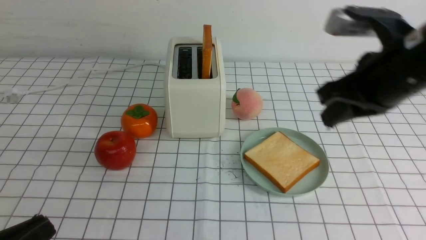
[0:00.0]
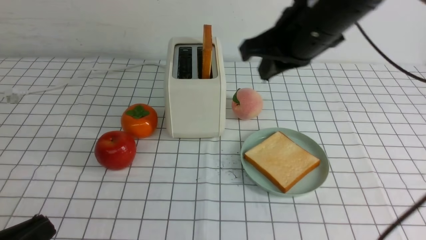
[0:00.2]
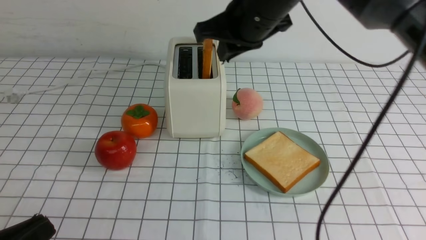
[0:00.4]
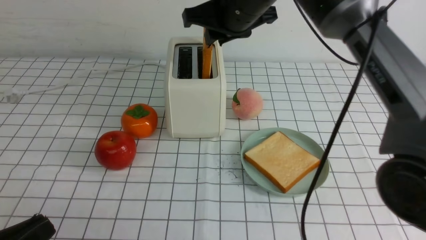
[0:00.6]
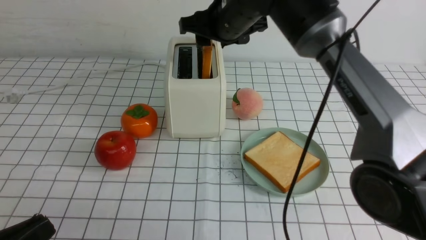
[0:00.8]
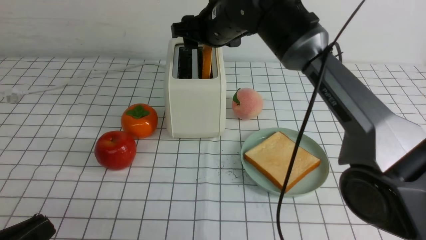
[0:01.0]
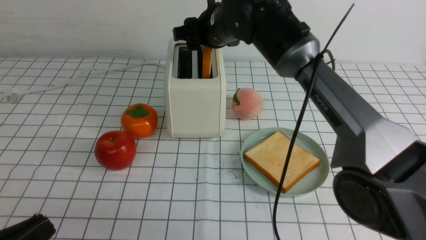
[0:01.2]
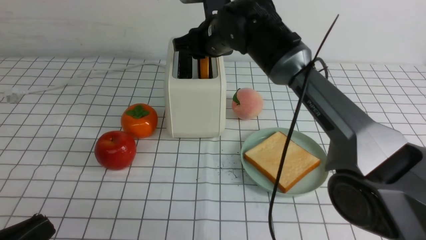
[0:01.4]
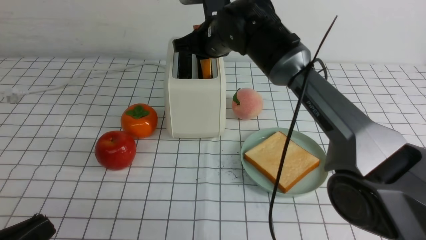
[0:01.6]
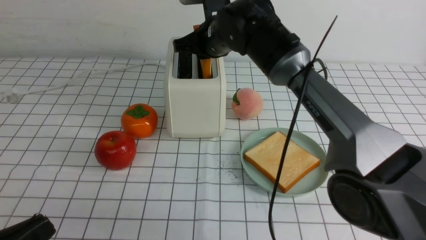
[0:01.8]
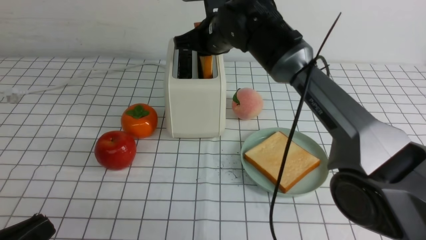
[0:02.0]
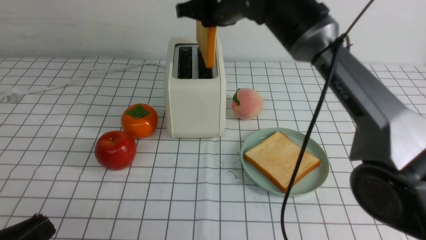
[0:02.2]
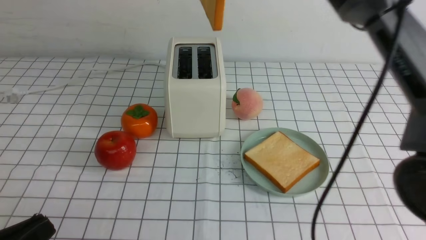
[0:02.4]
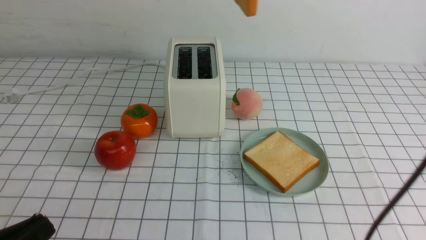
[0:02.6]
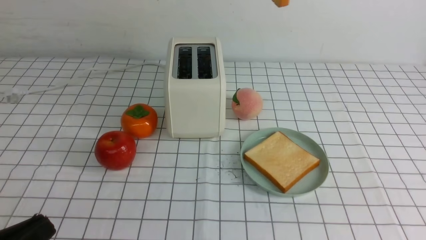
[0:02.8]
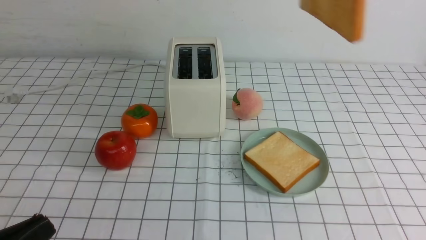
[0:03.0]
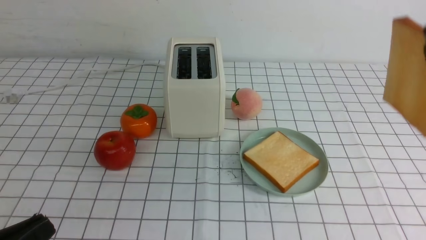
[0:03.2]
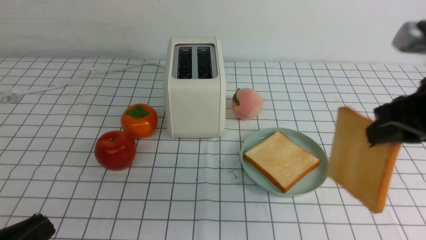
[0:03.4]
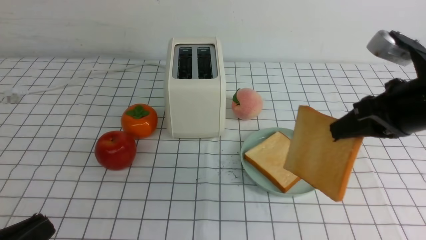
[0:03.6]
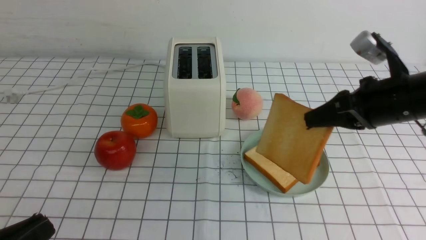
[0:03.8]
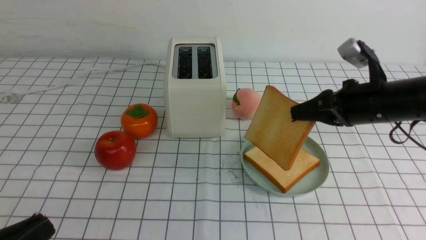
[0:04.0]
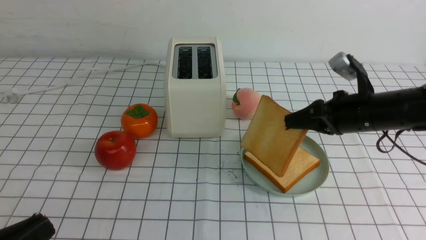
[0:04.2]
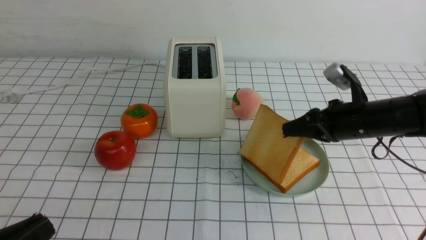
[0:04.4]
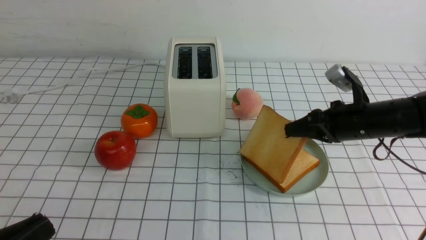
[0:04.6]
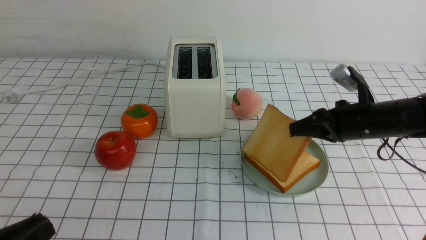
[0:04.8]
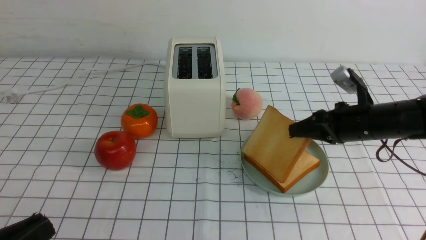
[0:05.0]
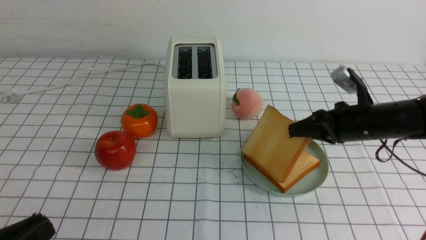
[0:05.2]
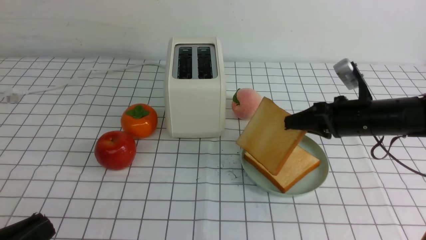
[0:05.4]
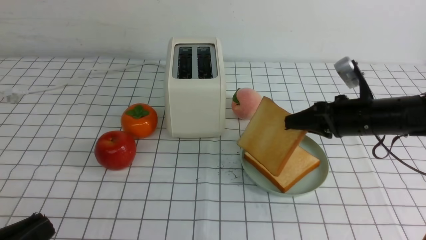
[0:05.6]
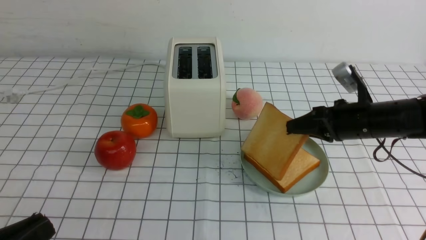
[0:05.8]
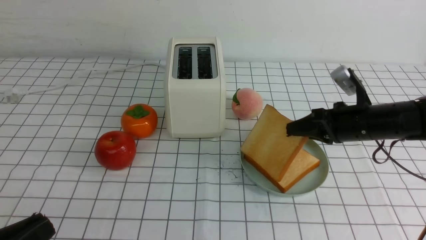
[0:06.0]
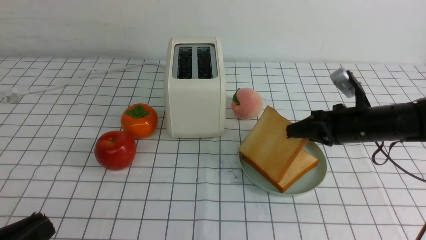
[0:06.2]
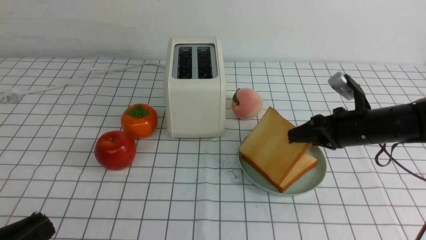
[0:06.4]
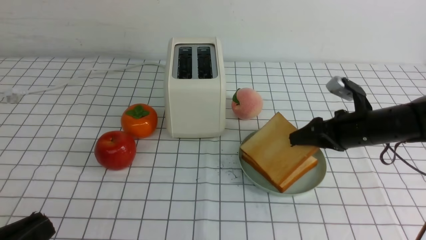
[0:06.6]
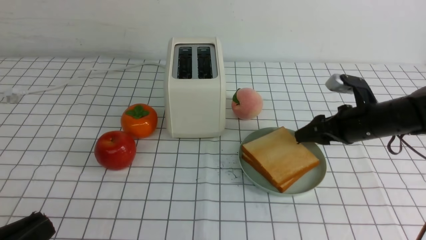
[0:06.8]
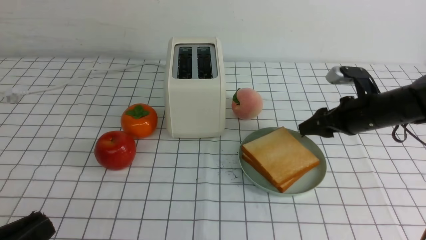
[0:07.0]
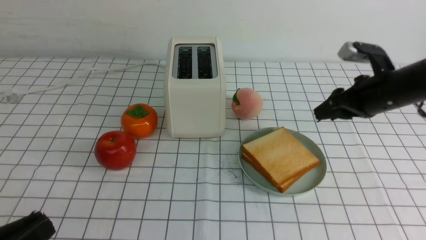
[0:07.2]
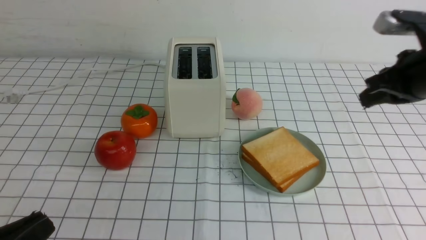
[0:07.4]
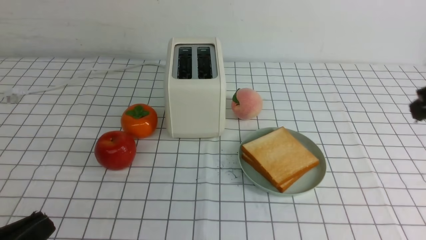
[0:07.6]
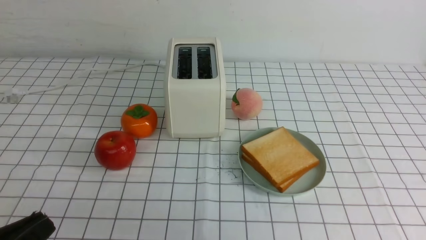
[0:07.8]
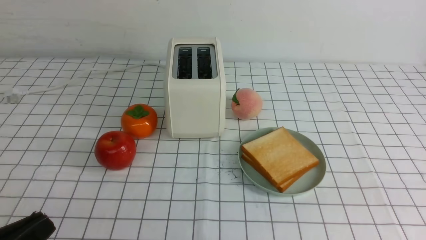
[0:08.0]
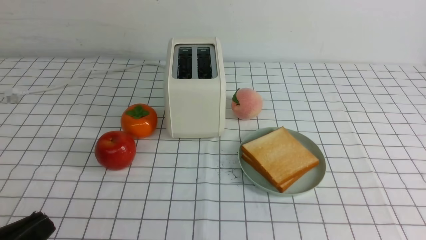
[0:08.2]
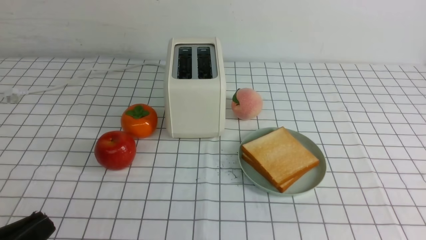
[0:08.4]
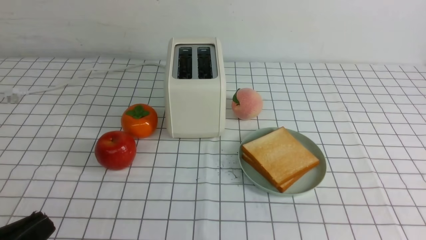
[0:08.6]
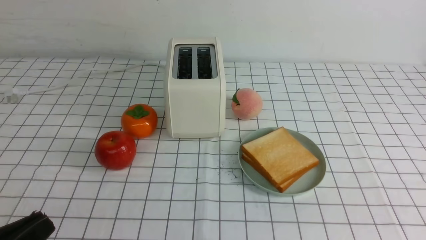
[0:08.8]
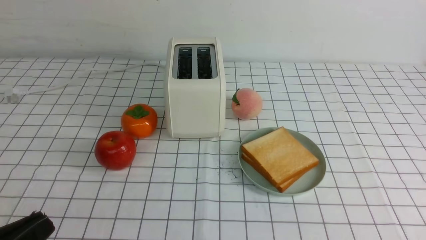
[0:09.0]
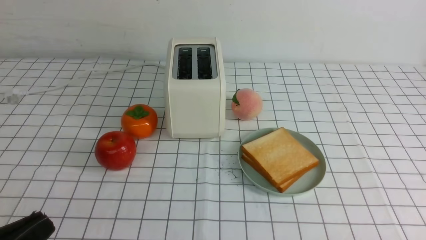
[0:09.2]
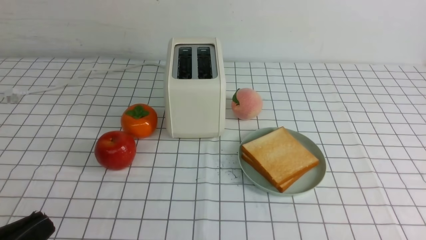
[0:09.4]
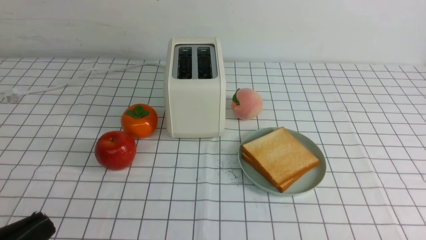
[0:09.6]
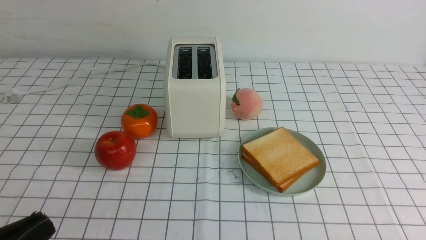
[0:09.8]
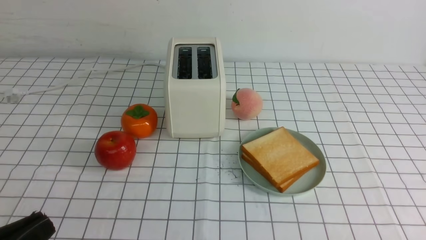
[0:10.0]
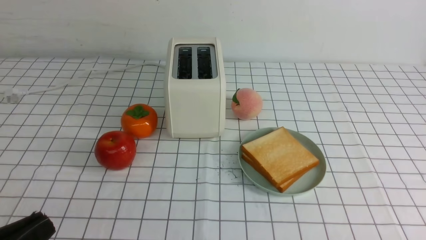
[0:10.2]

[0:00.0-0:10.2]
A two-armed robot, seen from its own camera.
Task of the whole recording: take toasted bread from bread machine on white checkered table place on plate.
Step, 0:00.0 to 0:02.0: use the right arm to take out a slice of bread.
Step, 0:02.2 to 0:07.0: use the right arm to put a slice of bread into the plate.
0:00.0 to 0:01.4: The right gripper is displaced forward and to the left by about 30 cm, and opens its fingers.
0:01.4 to 0:03.0: The right gripper travels upward, backward and to the right by about 30 cm, and closes its fingers.
0:03.0 to 0:04.4: The right gripper is displaced downward by roughly 30 cm.
0:04.4 to 0:05.8: The grippers stay close to where they were, moving slightly.
0:05.8 to 0:07.2: The right gripper opens its fingers.
0:07.2 to 0:08.8: The right gripper travels backward by approximately 30 cm, and closes.

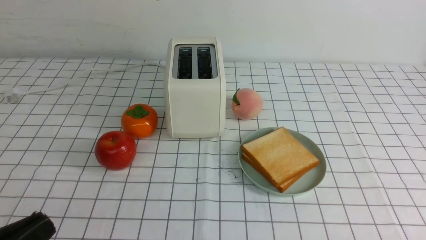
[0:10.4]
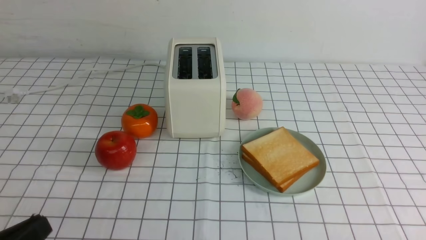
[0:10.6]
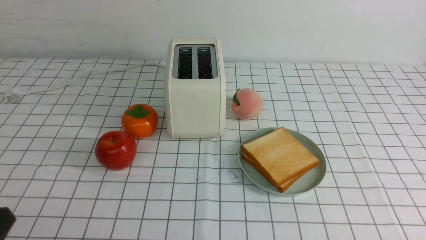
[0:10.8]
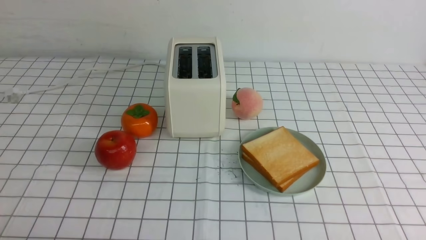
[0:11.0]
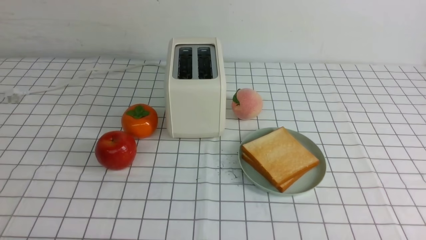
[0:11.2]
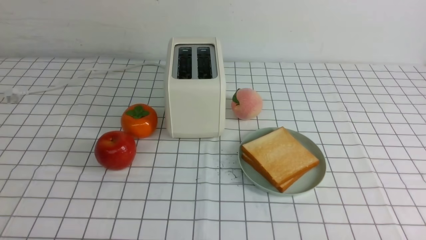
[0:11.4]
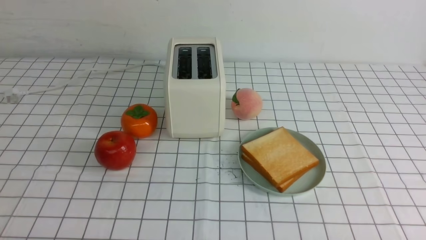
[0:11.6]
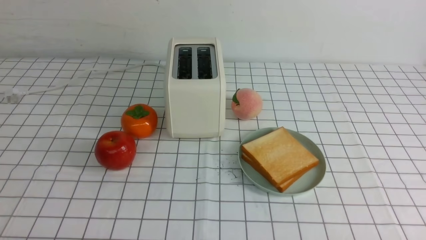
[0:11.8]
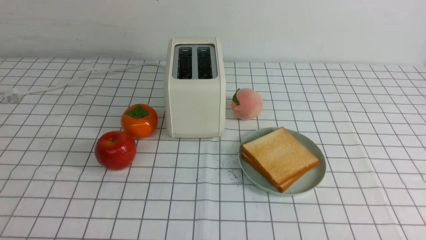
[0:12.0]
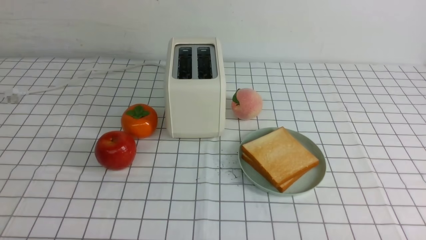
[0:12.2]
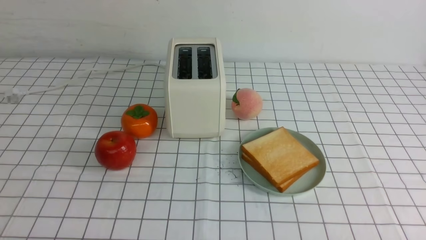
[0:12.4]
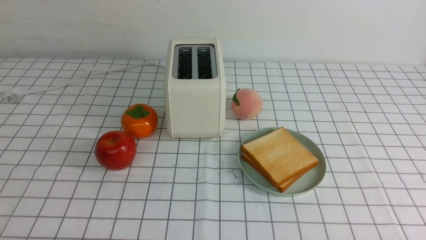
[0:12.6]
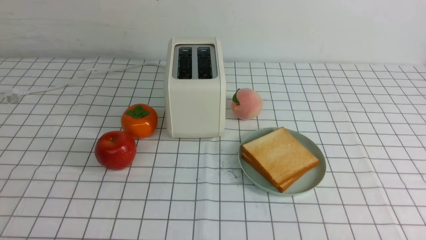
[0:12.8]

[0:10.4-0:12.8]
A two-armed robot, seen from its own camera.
Task of the whole recording: take toasted bread from bread machine on white checkered table place on plate.
0:10.4 to 0:11.6: The left gripper heads downward, covering approximately 10 cm.
0:11.6 to 0:12.8: Both grippers stay about where they are.
